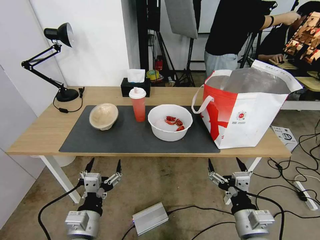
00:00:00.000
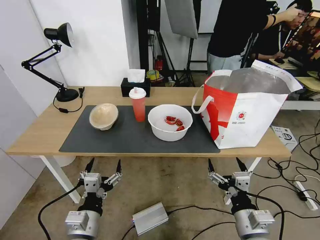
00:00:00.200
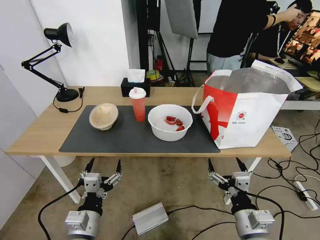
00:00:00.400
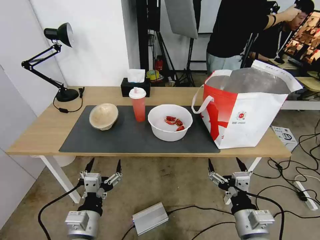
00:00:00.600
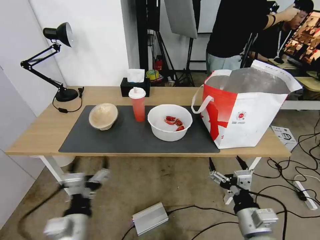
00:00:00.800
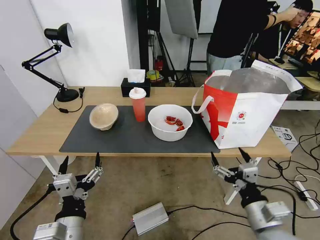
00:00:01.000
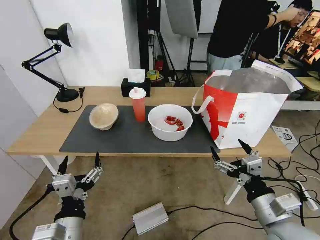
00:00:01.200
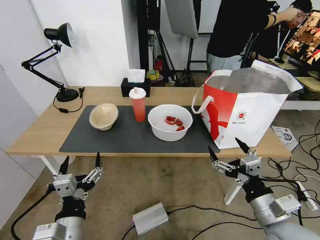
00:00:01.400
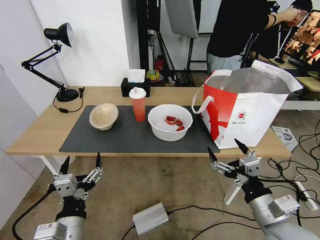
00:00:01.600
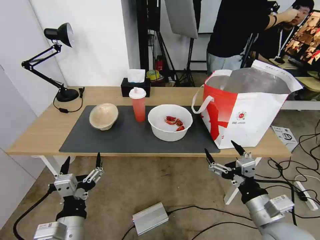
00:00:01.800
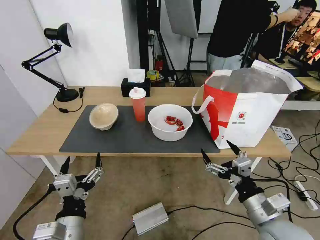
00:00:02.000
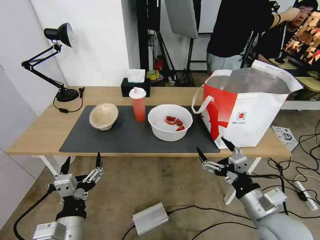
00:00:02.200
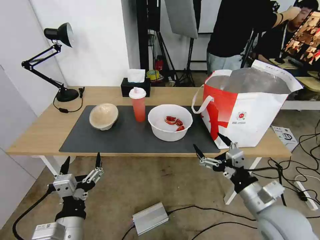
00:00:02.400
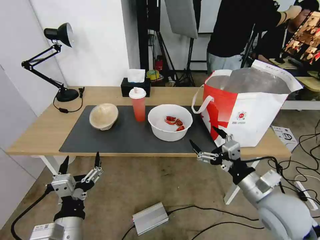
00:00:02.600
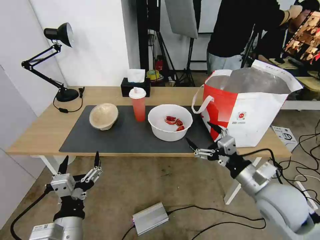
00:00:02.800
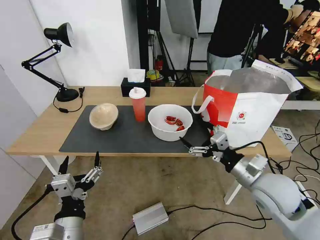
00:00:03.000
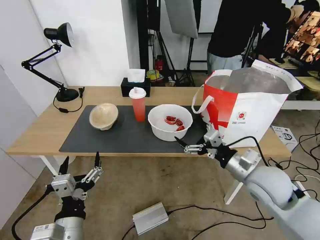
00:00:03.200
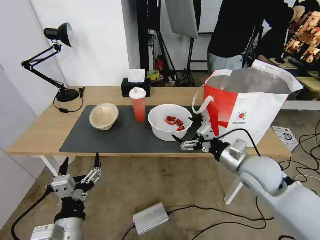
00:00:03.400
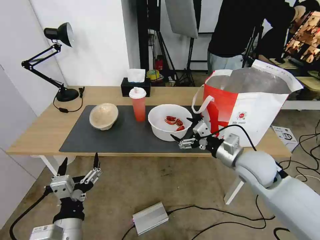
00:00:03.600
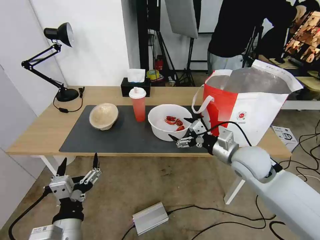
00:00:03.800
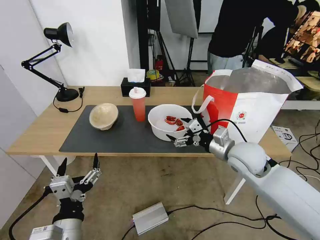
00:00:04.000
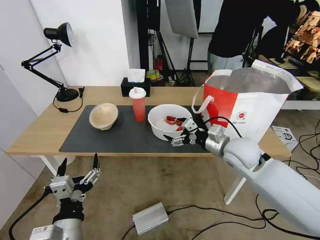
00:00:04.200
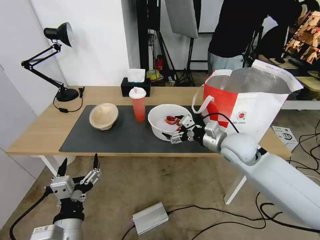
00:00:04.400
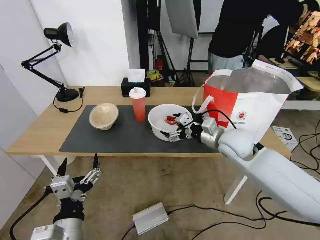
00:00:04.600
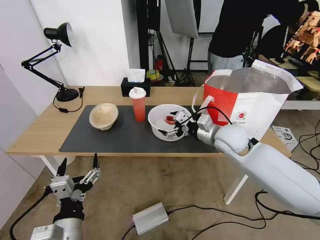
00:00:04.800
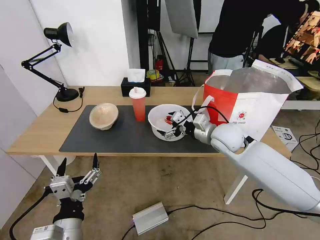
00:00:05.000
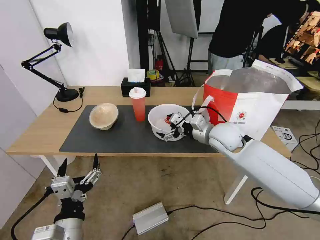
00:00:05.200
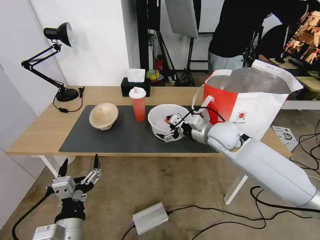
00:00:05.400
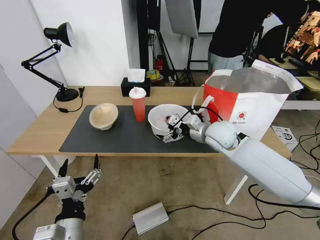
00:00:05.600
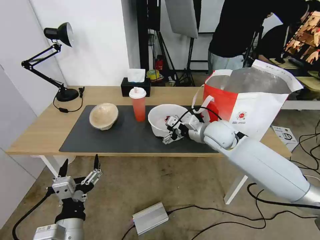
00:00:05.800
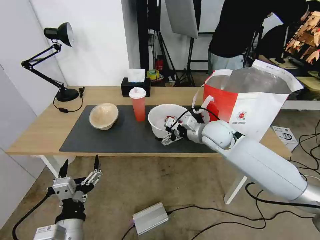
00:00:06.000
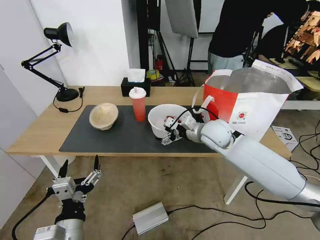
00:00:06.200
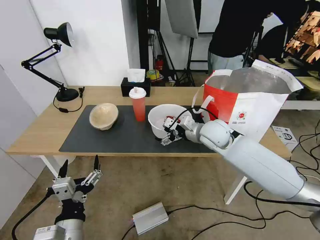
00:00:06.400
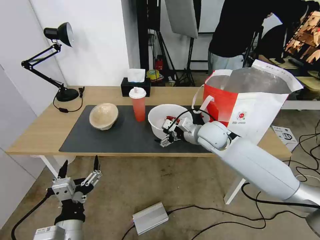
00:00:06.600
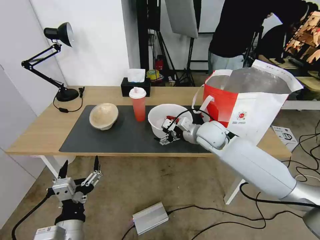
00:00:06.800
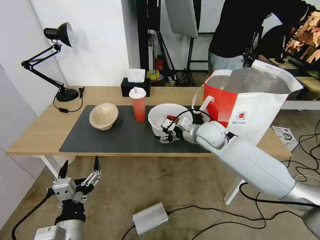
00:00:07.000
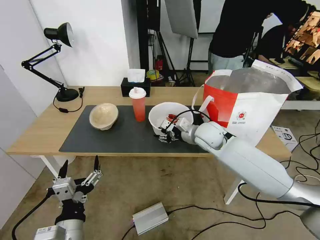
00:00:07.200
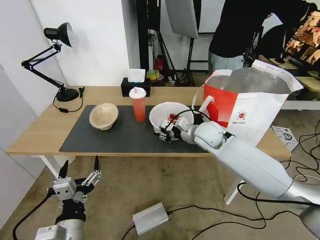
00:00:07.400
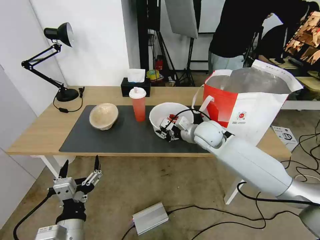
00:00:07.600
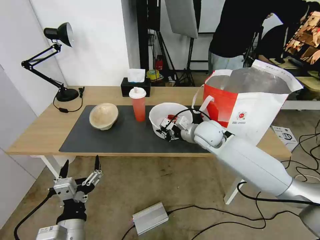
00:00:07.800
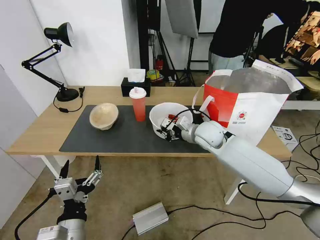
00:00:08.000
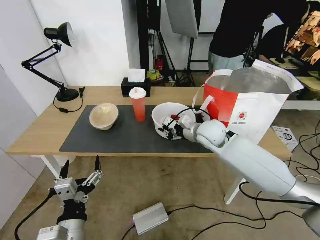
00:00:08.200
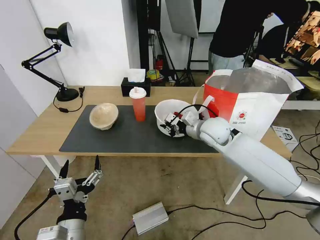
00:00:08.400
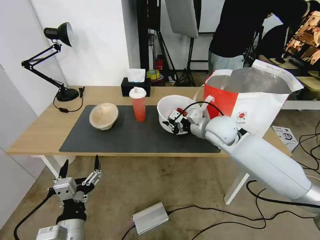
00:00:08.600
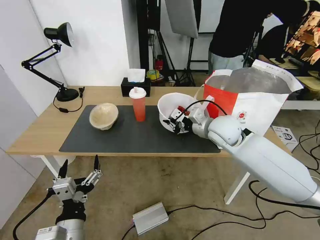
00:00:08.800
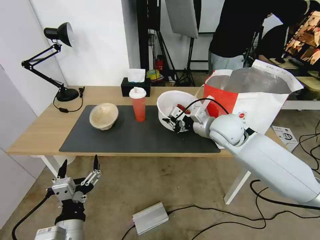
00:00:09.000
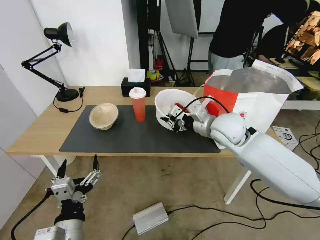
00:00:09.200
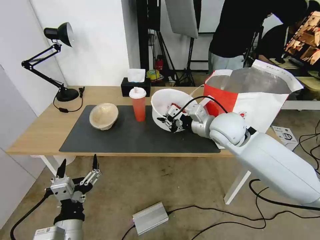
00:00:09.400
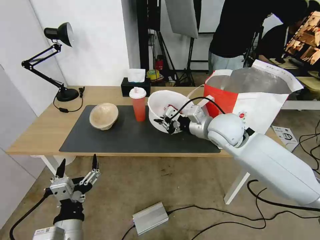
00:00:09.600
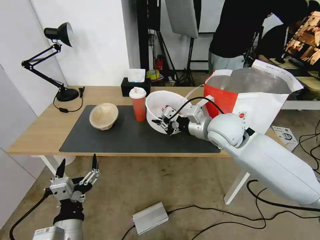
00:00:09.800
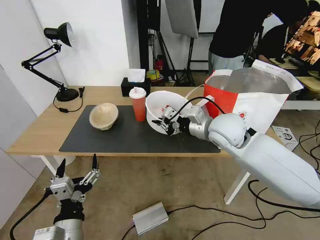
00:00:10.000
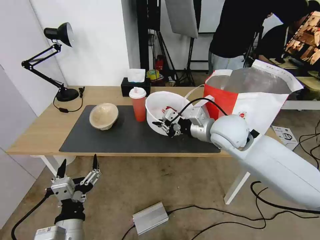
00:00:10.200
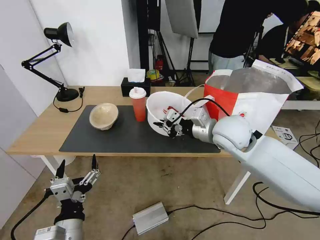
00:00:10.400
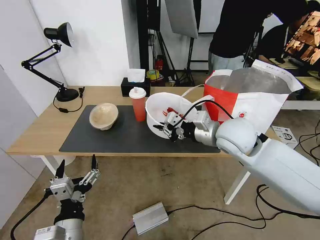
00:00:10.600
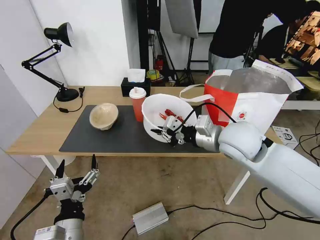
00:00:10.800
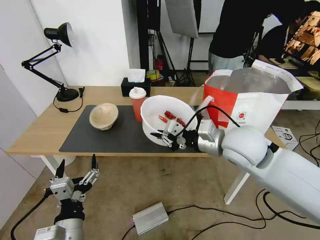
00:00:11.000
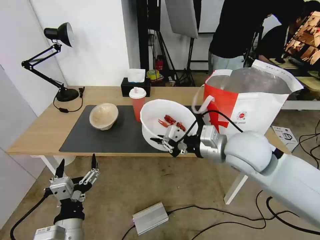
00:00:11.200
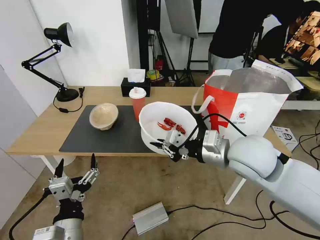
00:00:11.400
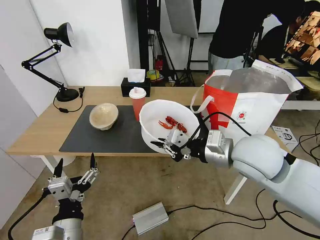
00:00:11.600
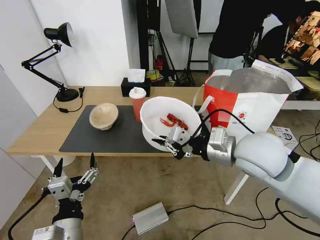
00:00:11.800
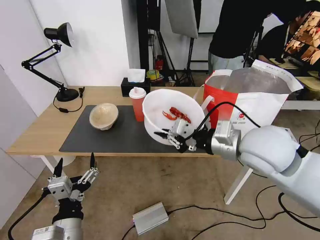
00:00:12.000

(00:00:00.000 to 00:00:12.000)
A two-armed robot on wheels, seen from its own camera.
Task of the whole recording: Pick up the trash from the table and place it into the takeout bag.
00:00:01.600 - 00:00:03.000: The right gripper moves forward, some 10 cm.
00:00:03.000 - 00:00:04.400: The right gripper shifts roughly 15 cm forward.
00:00:04.400 - 00:00:06.000: The right gripper goes about 5 cm forward.
00:00:06.000 - 00:00:07.600: The right gripper closes up.
00:00:07.600 - 00:00:09.000: The right gripper shifts approximately 5 cm upward.
00:00:09.000 - 00:00:10.400: The right gripper shifts by approximately 5 cm.
00:00:10.400 - 00:00:12.000: The right gripper moves backward, roughly 10 cm.

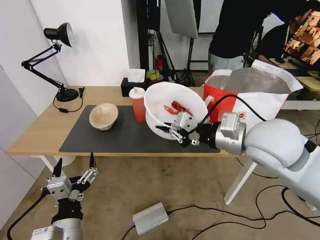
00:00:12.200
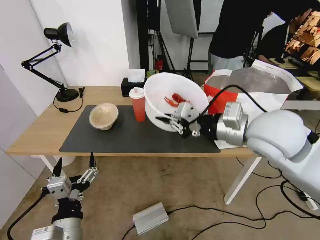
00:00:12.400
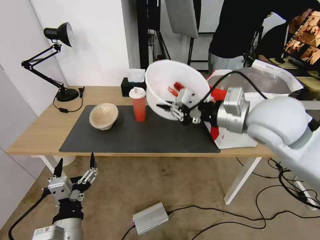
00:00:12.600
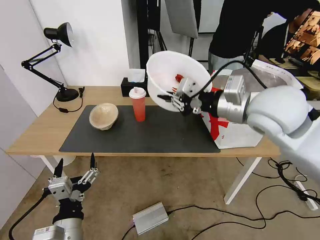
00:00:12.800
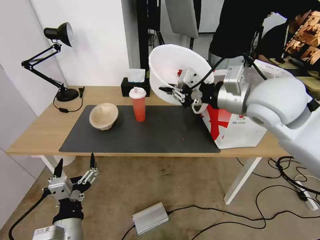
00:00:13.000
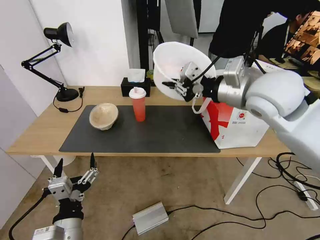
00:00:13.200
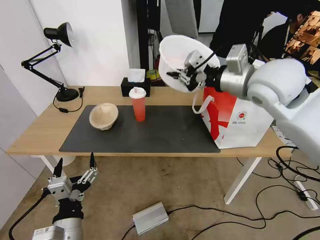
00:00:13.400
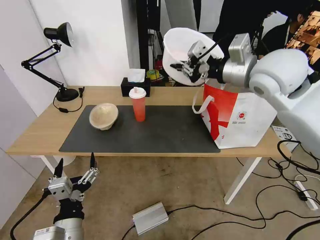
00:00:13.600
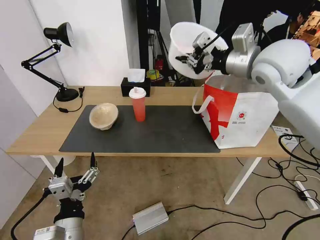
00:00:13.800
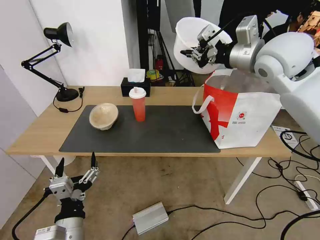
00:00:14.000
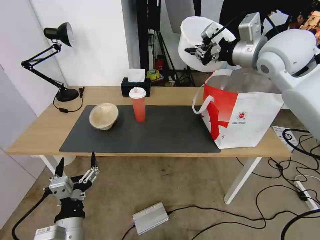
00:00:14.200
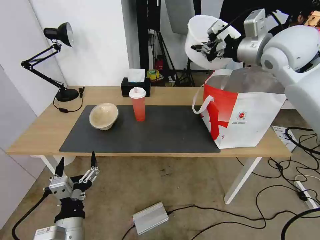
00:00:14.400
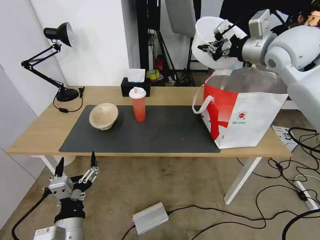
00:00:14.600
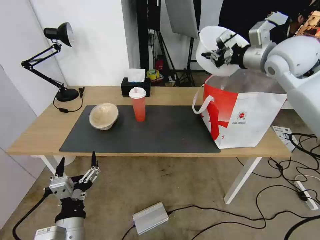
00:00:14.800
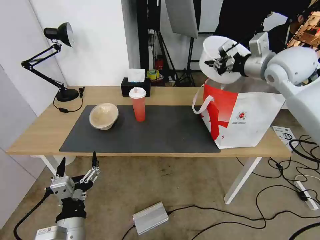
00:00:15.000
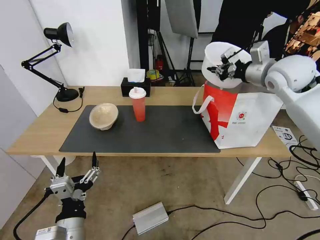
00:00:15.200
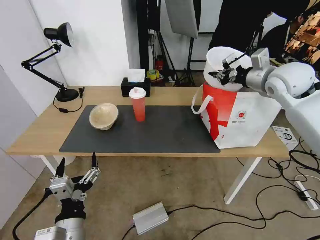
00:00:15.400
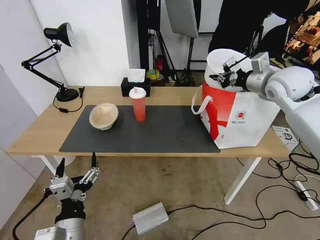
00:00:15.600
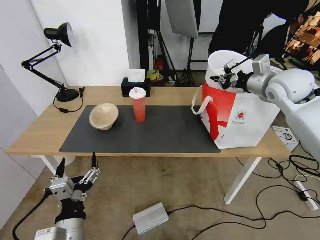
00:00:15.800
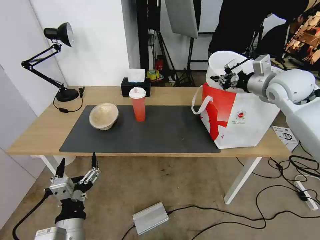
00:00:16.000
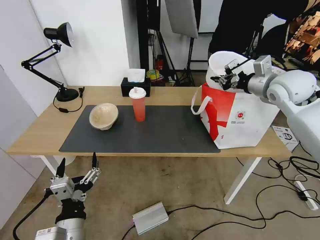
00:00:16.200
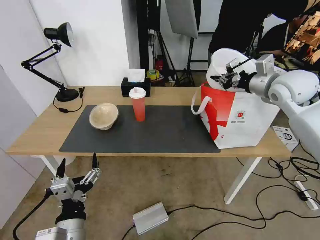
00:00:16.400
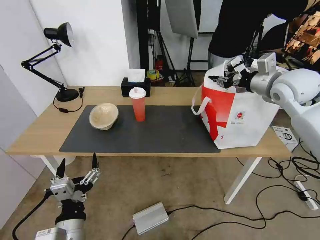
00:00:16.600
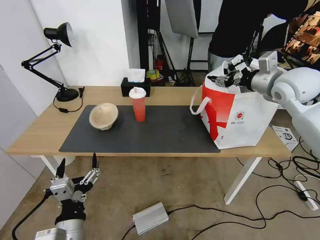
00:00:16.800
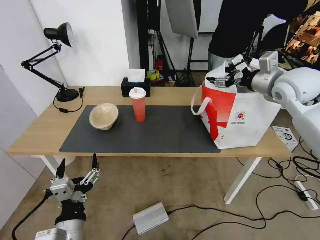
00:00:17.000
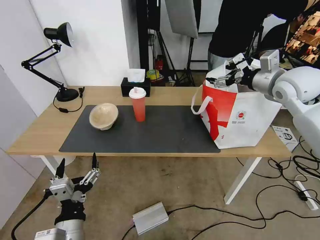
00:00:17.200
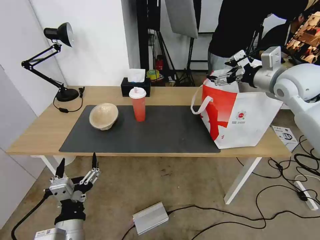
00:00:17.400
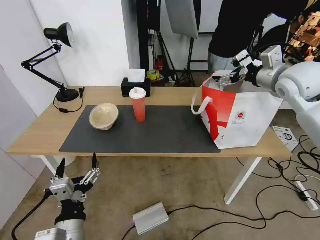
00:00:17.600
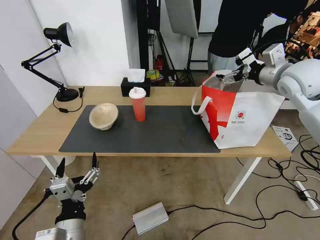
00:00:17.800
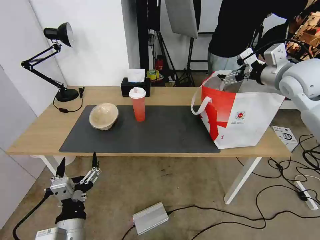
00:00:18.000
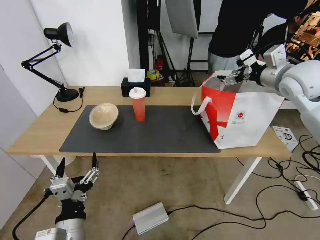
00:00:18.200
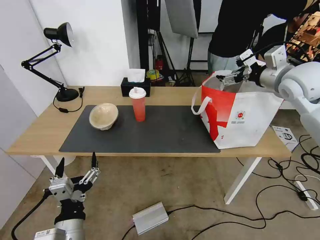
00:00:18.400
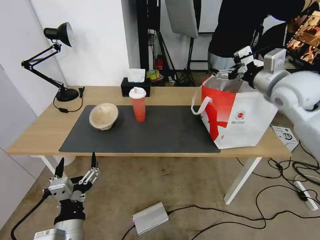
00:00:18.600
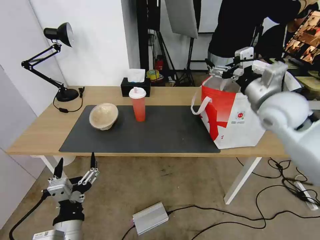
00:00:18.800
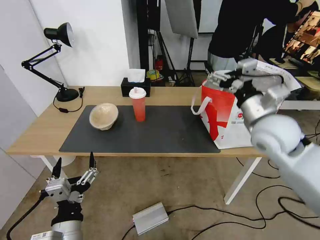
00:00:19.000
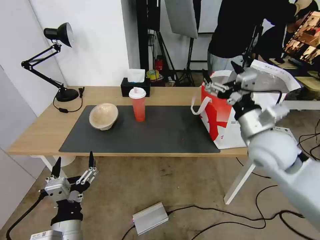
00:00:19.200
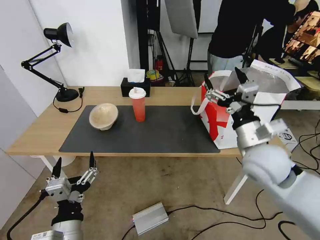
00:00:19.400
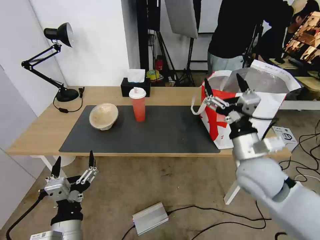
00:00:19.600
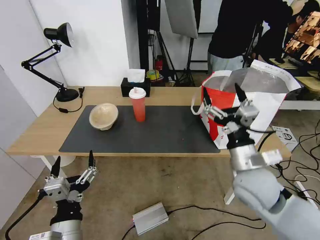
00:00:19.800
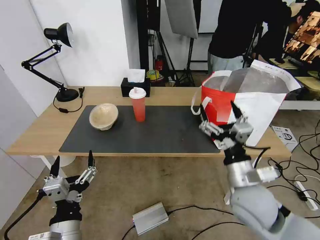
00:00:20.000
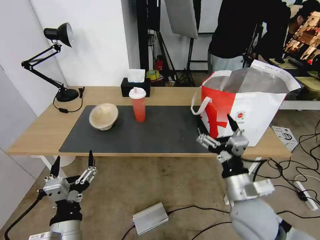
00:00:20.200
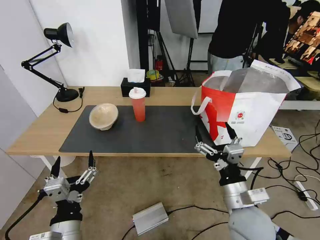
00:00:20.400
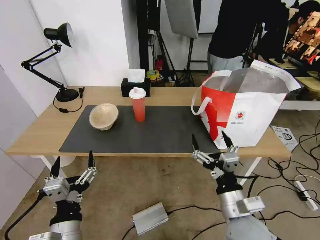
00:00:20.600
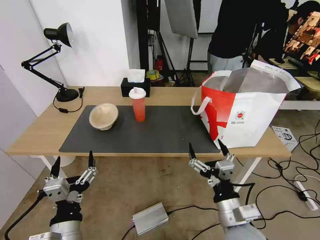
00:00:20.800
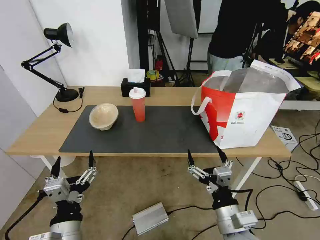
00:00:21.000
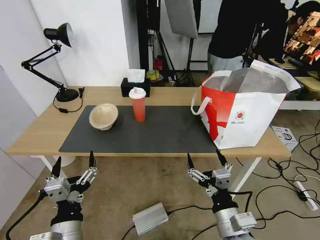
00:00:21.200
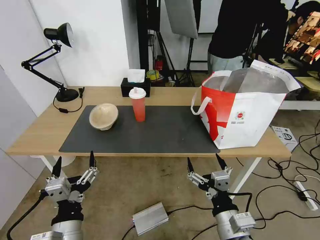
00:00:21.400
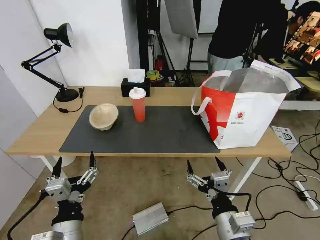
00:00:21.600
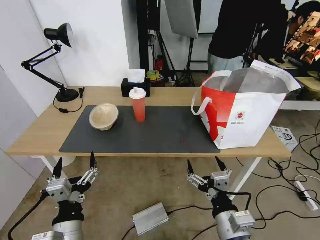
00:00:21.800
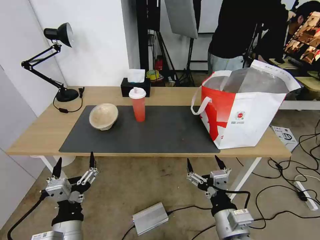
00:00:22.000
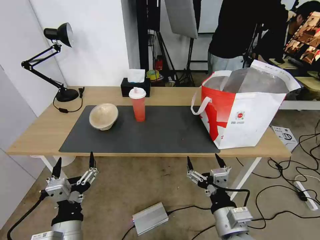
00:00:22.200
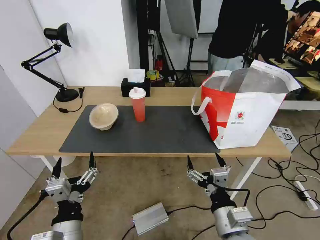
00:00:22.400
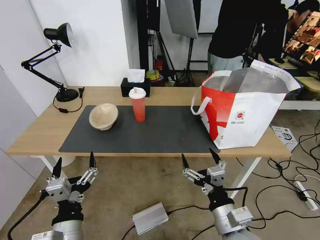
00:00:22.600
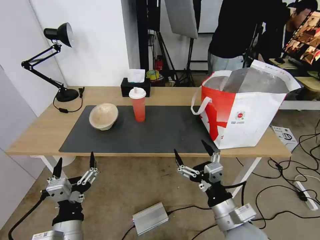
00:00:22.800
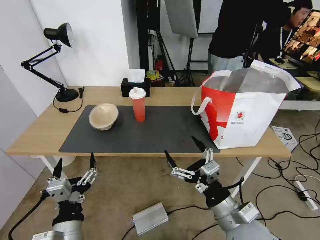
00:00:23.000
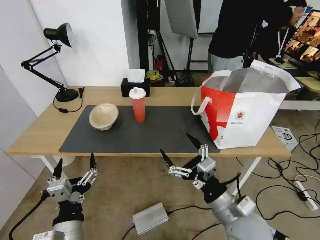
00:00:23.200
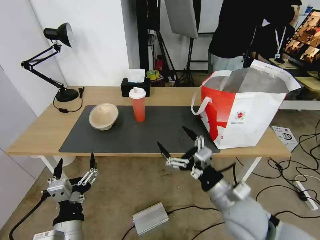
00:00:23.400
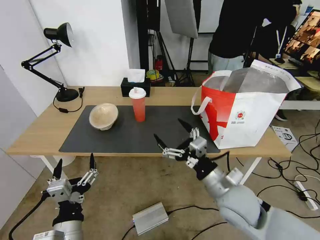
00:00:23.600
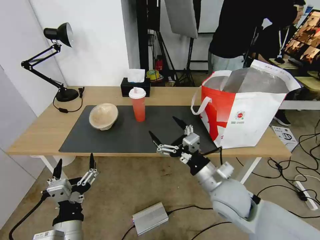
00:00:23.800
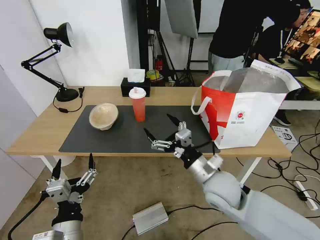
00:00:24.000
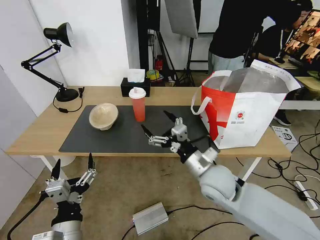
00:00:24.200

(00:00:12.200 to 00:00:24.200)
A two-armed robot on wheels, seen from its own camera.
Task of the whole recording: Pick up the trash from the table and place it into the takeout bag.
00:00:12.200 - 00:00:13.800: The right gripper is displaced forward and upward by roughly 15 cm.
00:00:13.800 - 00:00:15.200: The right gripper heads to the right, forward and downward, covering some 10 cm.
00:00:15.200 - 00:00:16.600: There are only small adjustments of the grippers.
00:00:16.600 - 00:00:18.200: The right gripper opens.
00:00:18.200 - 00:00:19.800: The right gripper goes some 30 cm backward, downward and to the left.
00:00:19.800 - 00:00:21.200: The right gripper is displaced backward and downward by about 15 cm.
00:00:21.200 - 00:00:22.600: The grippers make only small movements.
00:00:22.600 - 00:00:24.200: The right gripper heads forward, covering approximately 15 cm.
